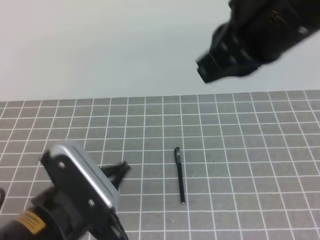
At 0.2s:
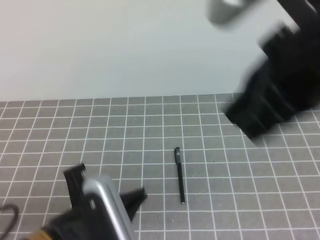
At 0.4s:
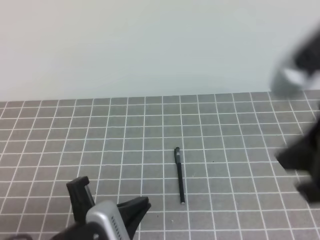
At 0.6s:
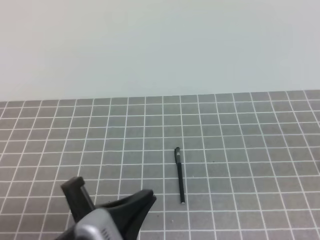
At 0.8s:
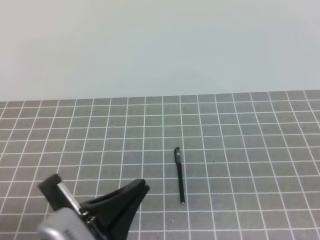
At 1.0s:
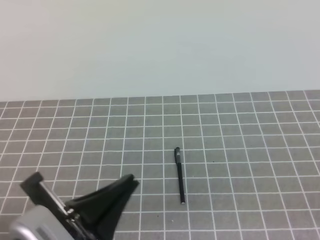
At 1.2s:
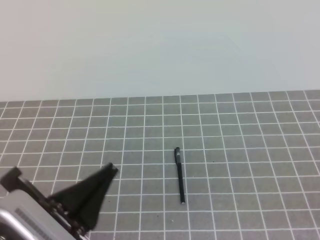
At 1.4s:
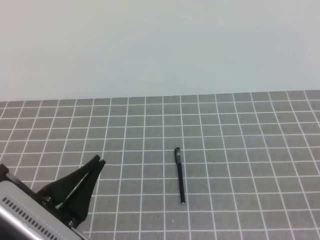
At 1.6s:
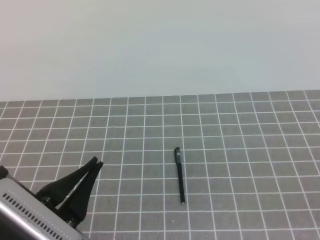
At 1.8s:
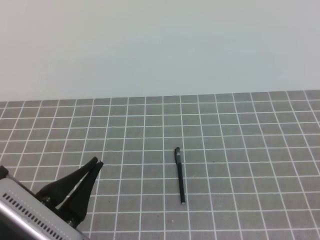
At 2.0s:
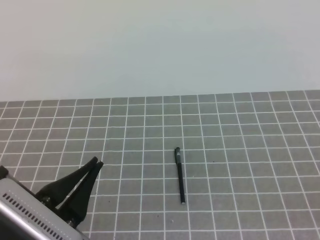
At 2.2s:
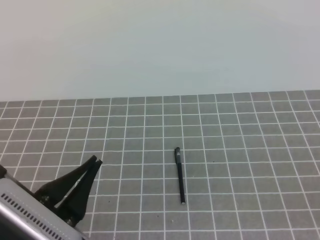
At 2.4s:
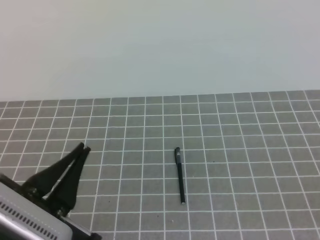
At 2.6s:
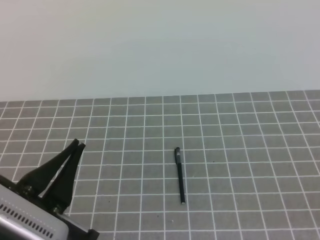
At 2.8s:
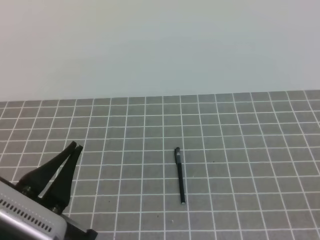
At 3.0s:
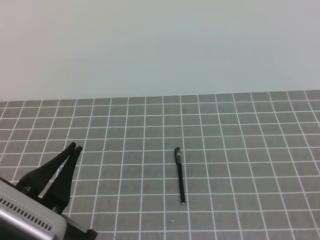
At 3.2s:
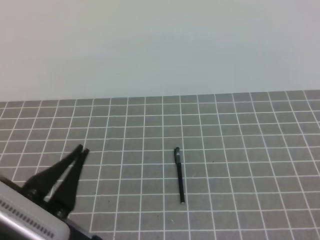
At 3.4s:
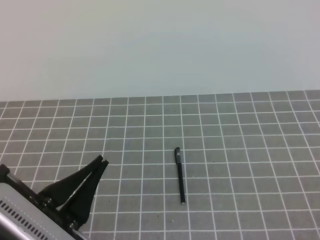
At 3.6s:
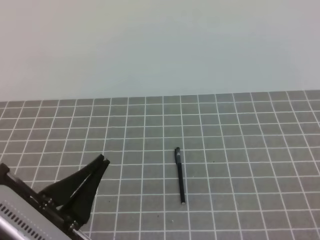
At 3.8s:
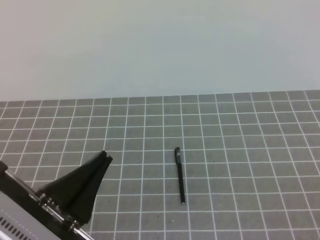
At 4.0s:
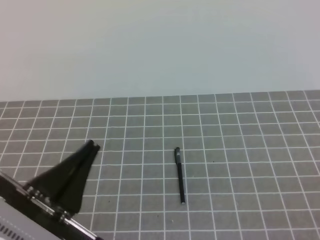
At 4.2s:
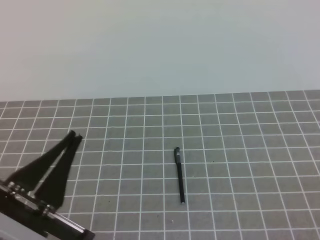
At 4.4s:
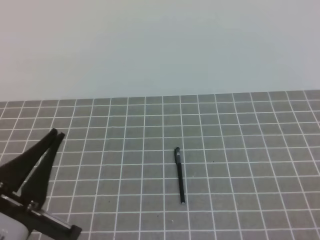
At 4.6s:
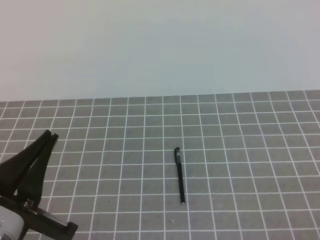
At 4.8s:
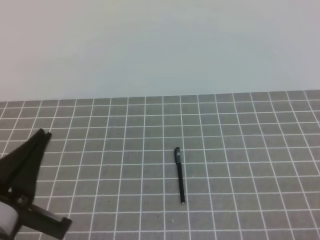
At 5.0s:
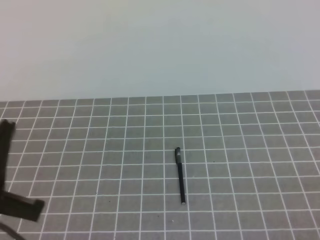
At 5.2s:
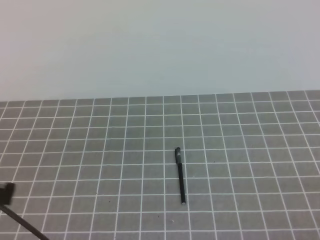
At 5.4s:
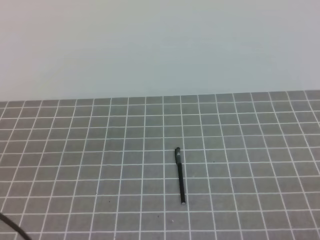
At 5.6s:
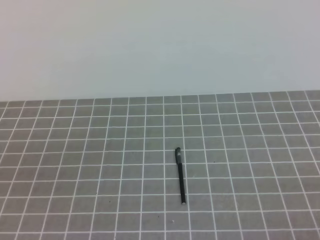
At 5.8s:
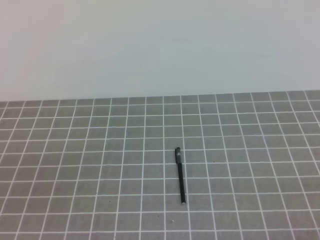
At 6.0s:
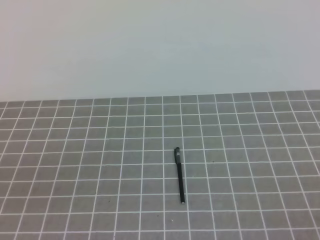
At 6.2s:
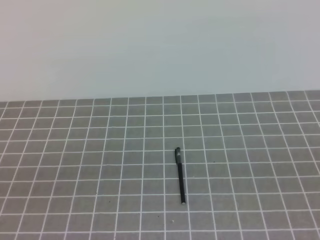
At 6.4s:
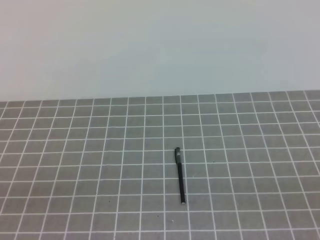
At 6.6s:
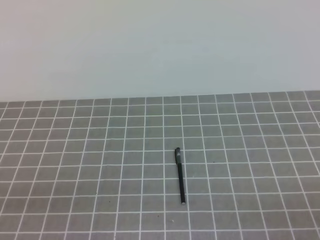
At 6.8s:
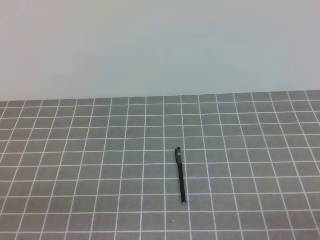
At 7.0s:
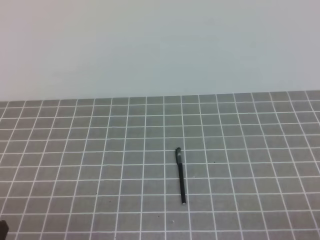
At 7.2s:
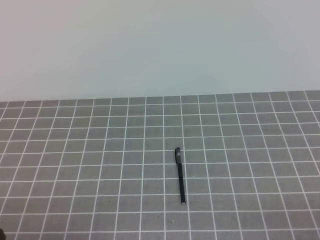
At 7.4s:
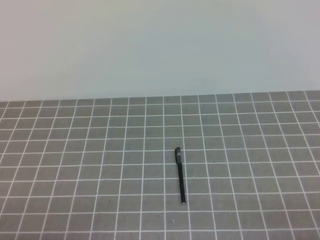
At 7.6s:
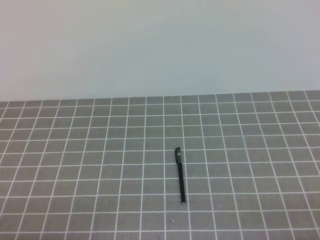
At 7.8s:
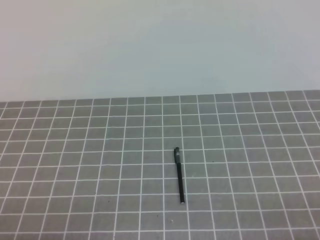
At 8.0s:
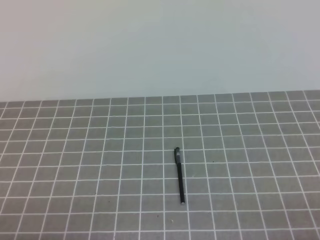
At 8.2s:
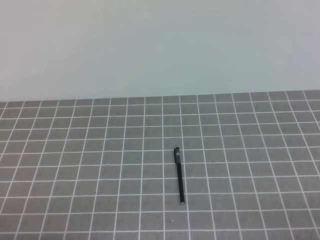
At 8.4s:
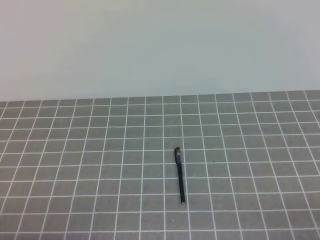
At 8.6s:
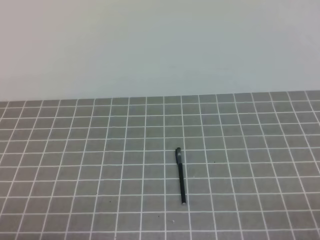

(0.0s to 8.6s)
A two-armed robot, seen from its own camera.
Task of the whole recording: on the grey tablecloth, hold the pen cap in one hand and the pen in the other, then cover the pen cap.
0.0s - 1.4s: The left gripper changes place by some 5 cm; the right gripper travels to the right, backward and downward by some 35 cm.
1.4s - 2.8s: There are only small adjustments of the grippers.
2.8s - 4.4s: The grippers move only a little.
4.4s - 5.8s: The left gripper travels to the left by roughly 15 cm.
